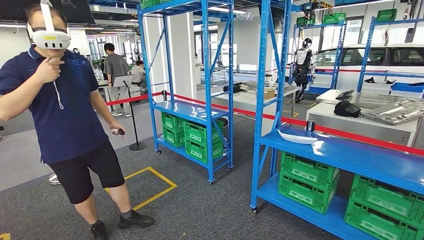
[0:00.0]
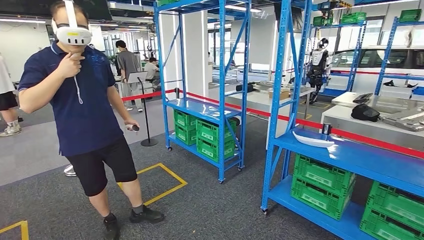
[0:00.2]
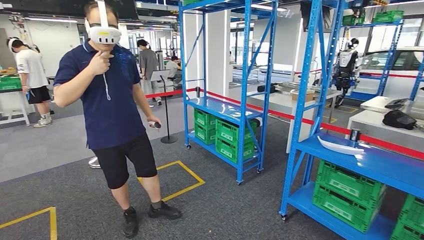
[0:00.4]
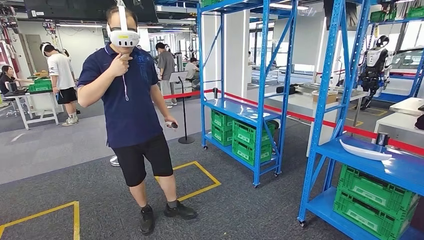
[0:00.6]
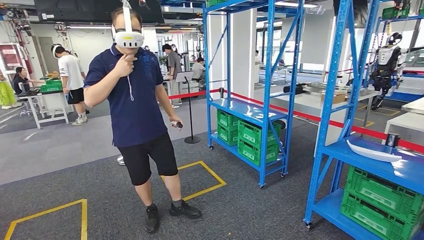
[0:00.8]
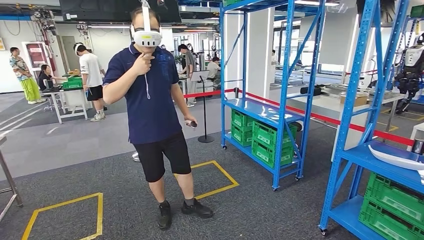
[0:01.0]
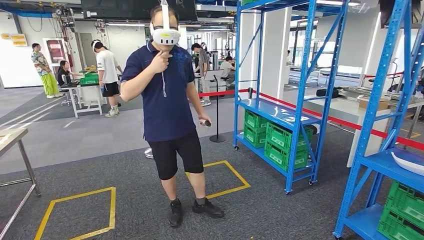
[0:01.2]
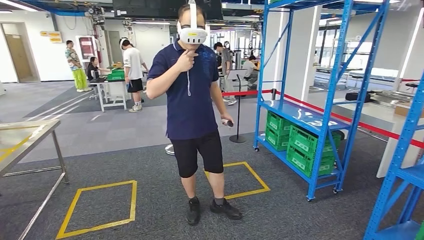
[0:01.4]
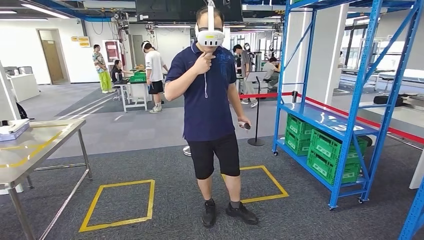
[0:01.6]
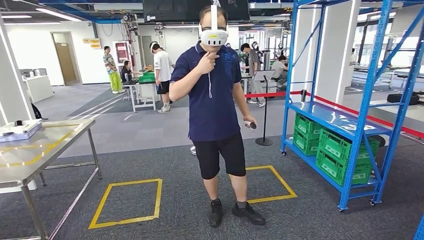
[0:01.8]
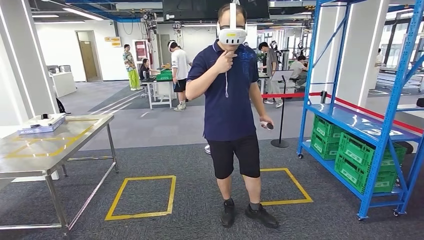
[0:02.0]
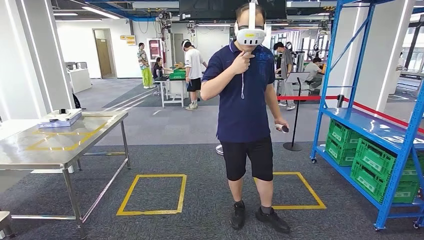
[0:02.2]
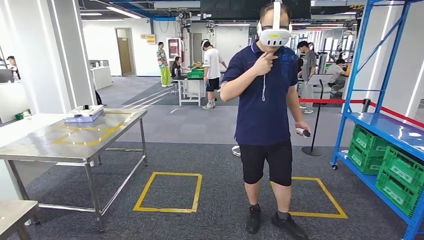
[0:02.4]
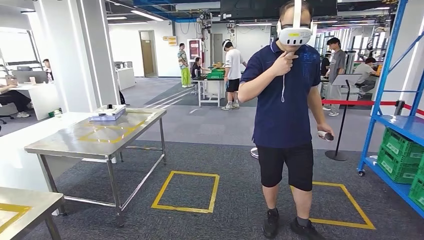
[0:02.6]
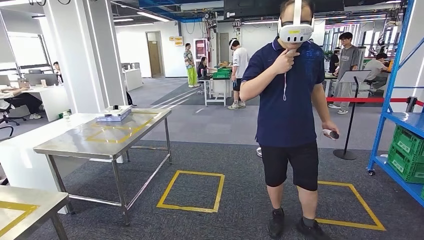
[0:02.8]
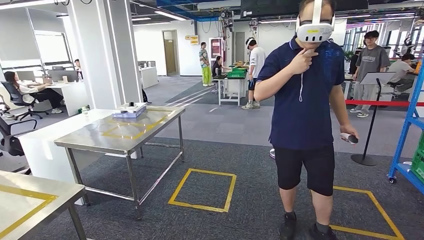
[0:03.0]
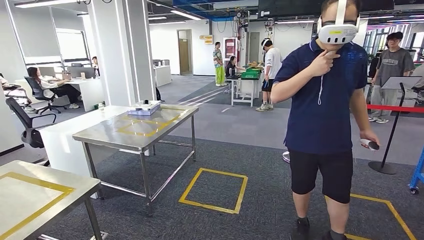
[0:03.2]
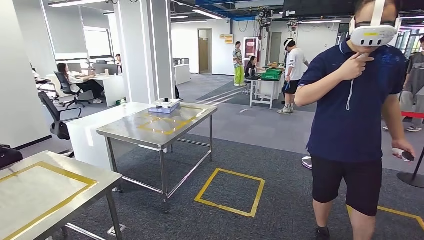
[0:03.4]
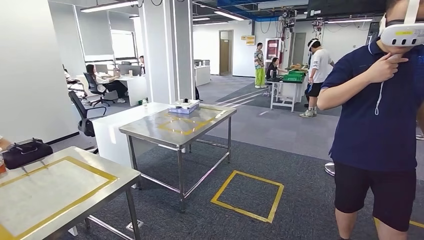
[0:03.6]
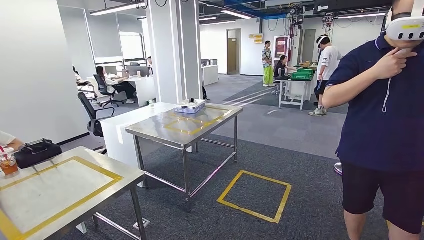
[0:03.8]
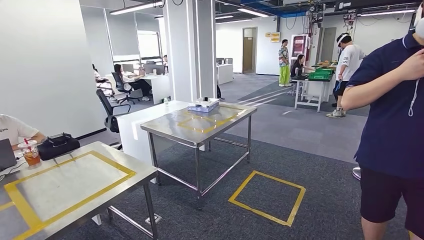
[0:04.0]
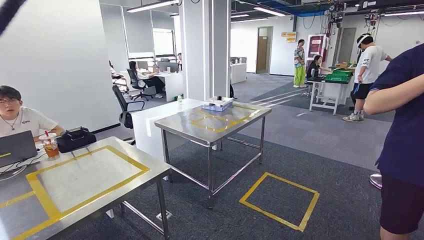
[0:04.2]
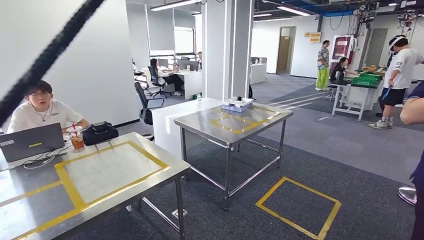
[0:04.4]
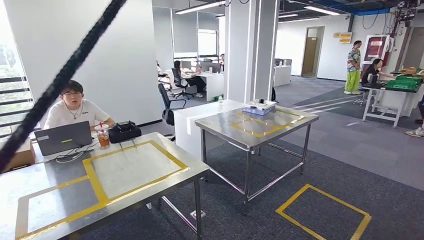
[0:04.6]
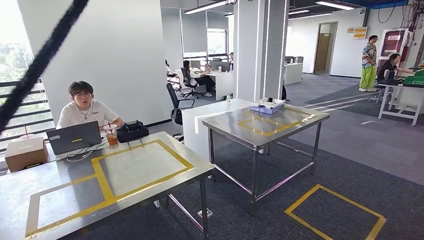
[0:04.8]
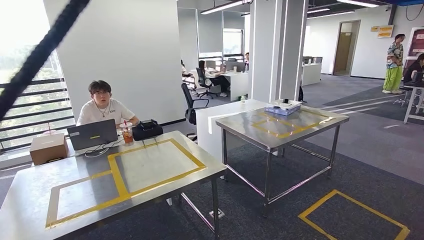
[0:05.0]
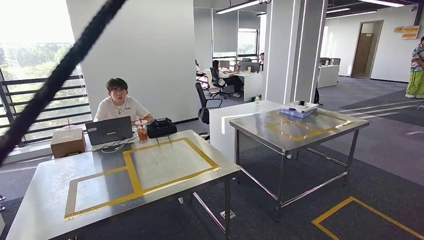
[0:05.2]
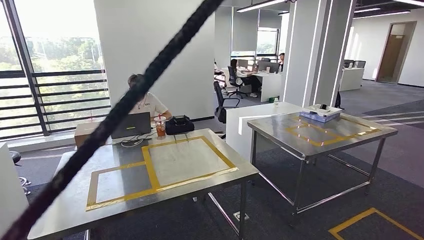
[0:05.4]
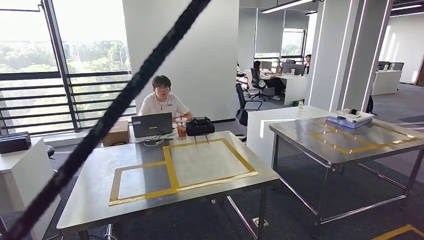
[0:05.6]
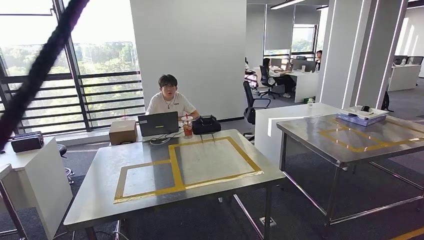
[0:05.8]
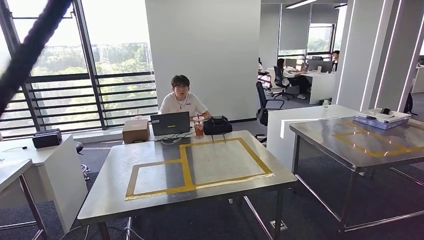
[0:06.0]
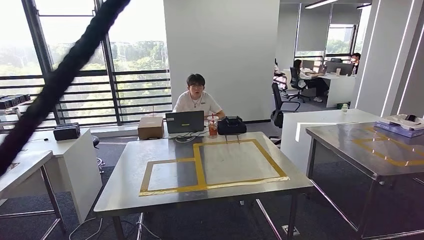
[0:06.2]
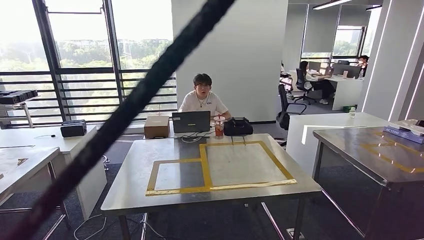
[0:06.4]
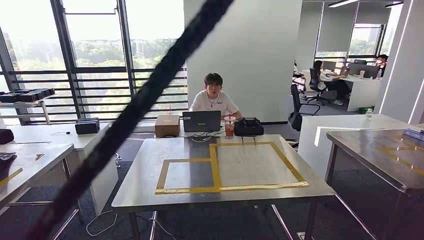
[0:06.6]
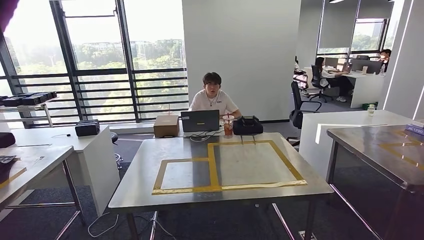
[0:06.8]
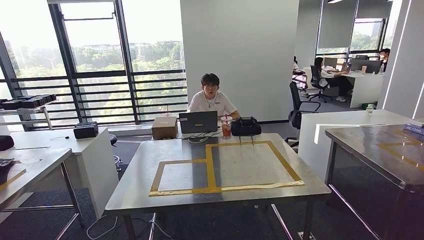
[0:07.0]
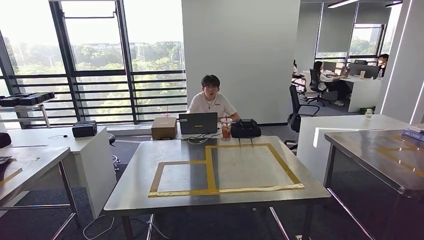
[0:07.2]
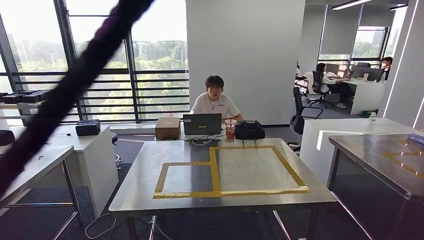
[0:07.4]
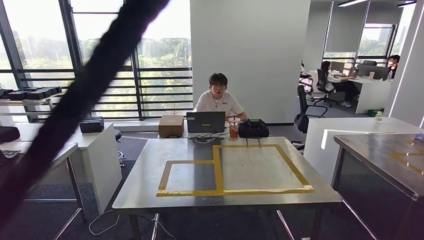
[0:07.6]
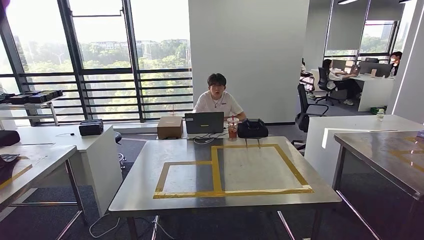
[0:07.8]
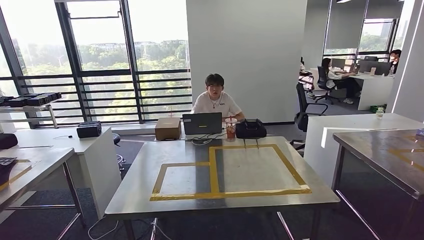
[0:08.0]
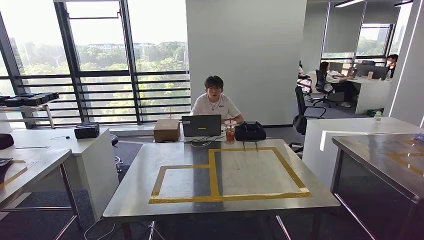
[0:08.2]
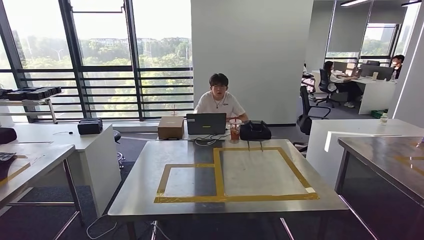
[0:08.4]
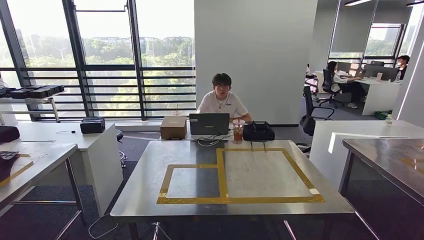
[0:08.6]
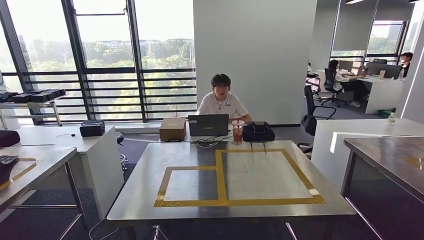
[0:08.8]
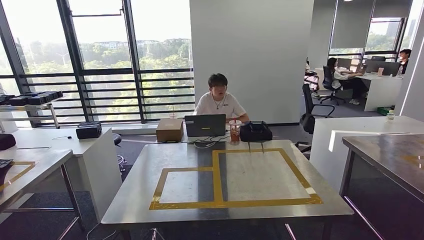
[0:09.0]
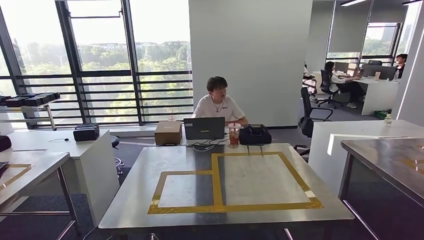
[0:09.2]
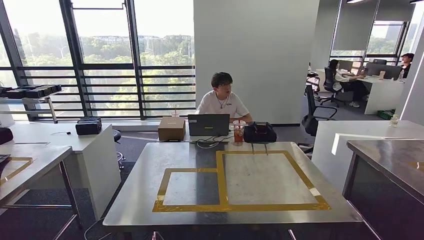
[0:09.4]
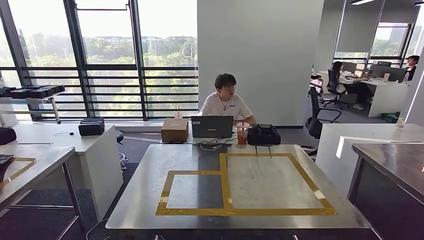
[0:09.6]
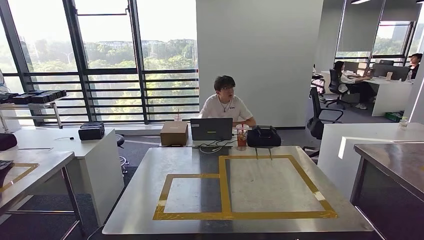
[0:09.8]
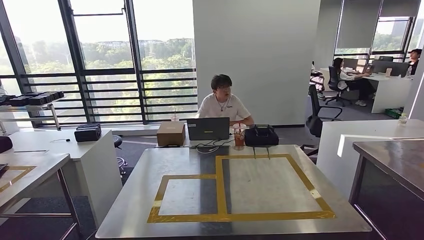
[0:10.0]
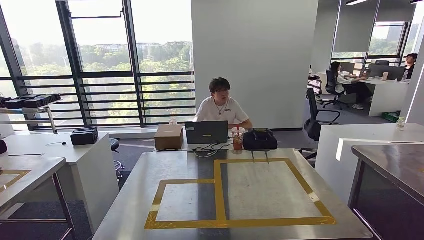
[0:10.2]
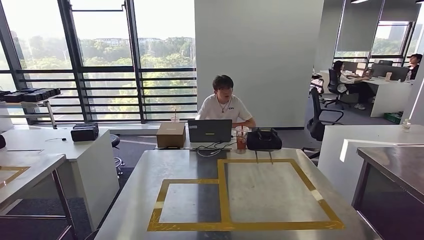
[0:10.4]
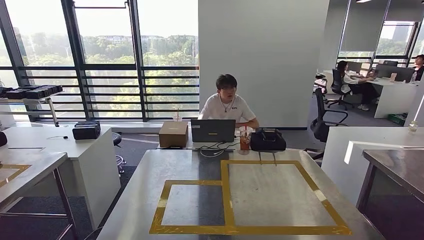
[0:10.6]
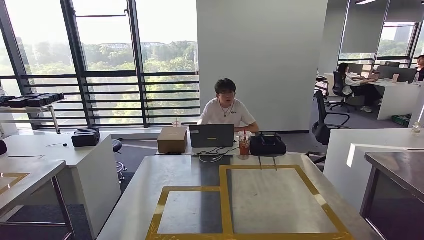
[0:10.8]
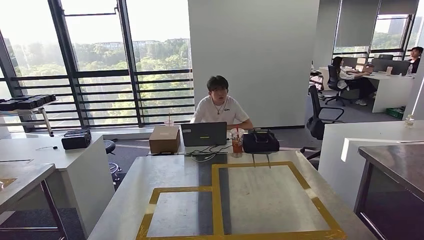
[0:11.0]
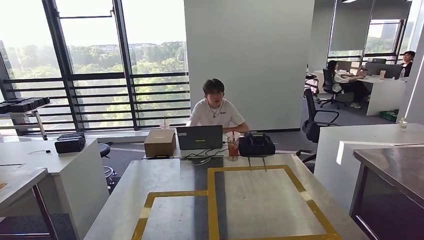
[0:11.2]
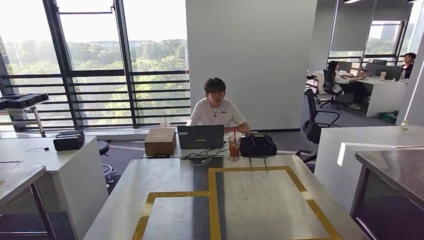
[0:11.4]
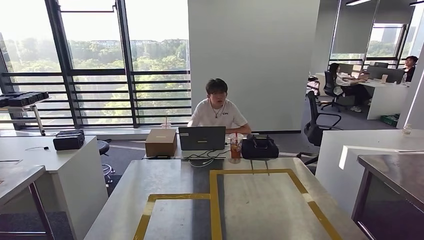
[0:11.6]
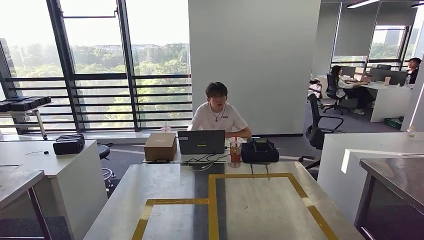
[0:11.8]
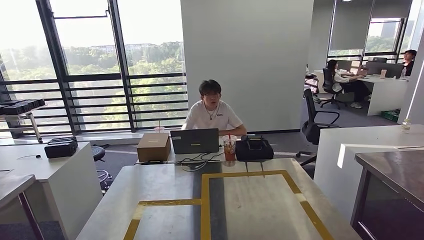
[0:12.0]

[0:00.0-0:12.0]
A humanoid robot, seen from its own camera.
Step, 0:00.0 to 0:03.6: Bring the small component to the front of the workbench.

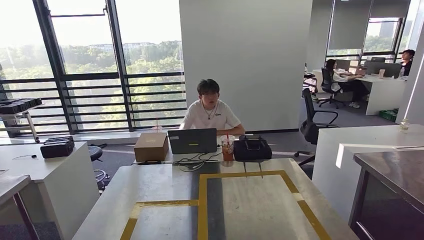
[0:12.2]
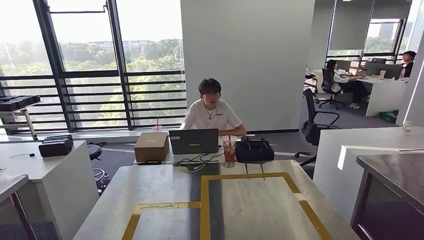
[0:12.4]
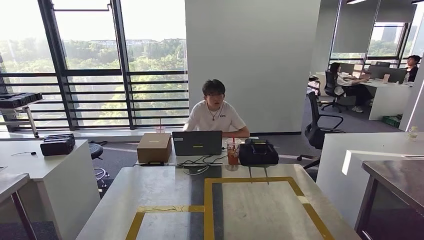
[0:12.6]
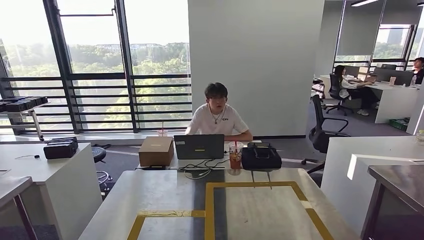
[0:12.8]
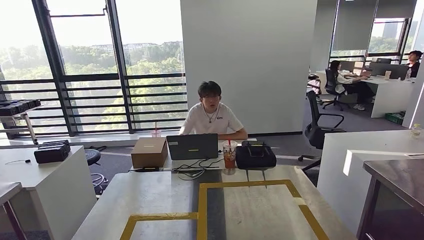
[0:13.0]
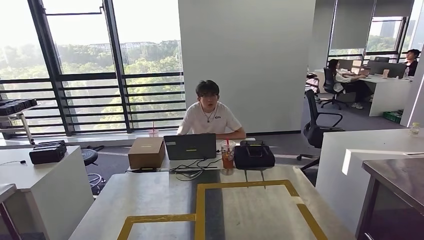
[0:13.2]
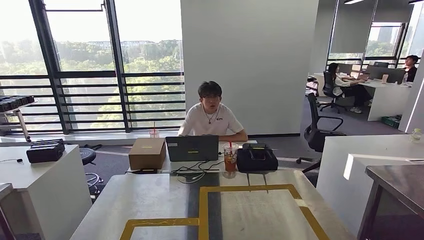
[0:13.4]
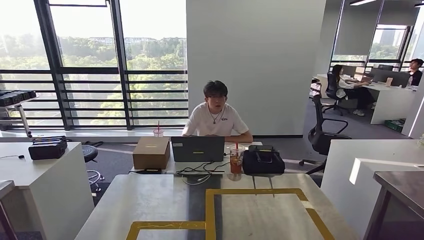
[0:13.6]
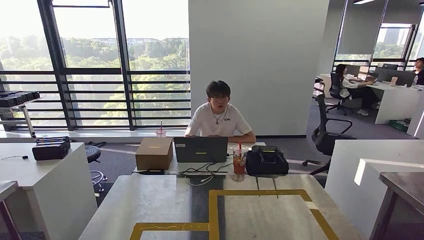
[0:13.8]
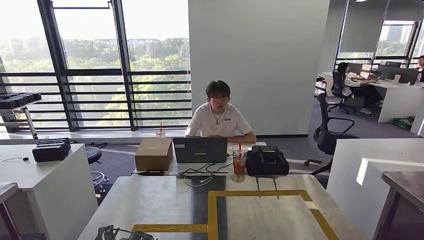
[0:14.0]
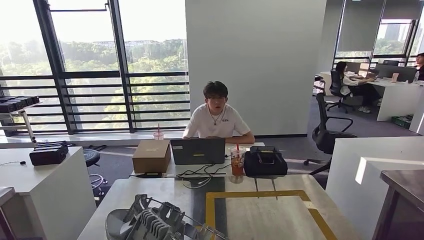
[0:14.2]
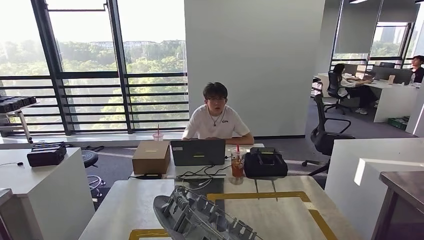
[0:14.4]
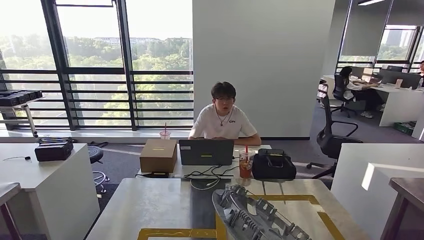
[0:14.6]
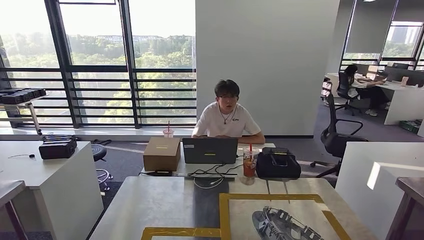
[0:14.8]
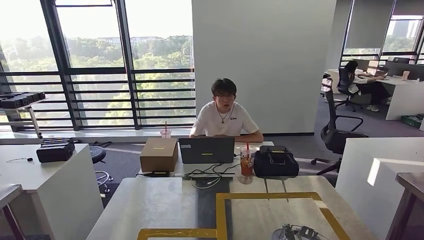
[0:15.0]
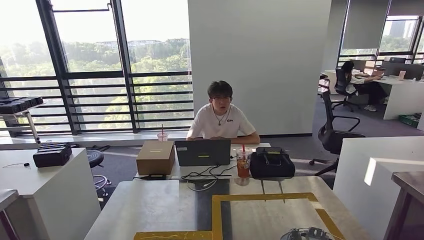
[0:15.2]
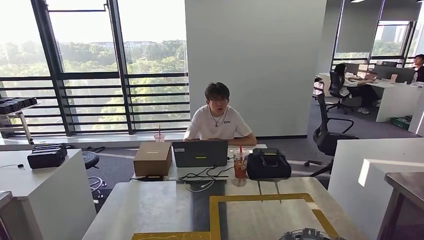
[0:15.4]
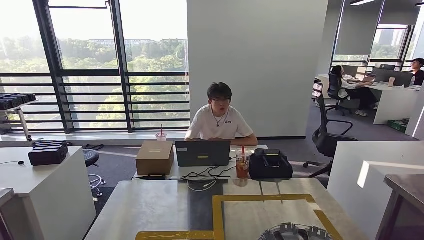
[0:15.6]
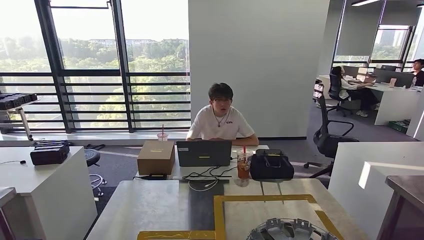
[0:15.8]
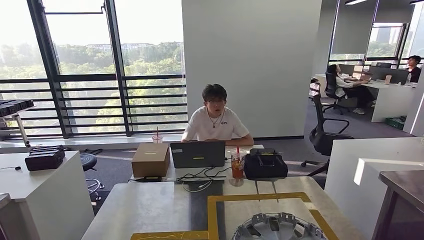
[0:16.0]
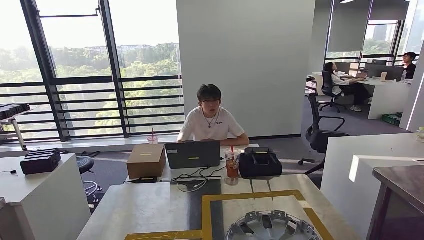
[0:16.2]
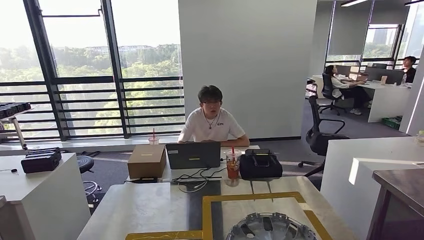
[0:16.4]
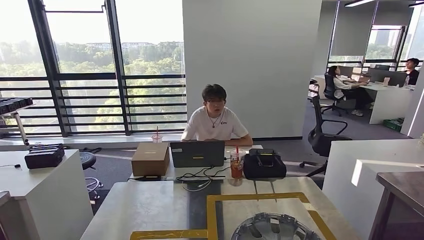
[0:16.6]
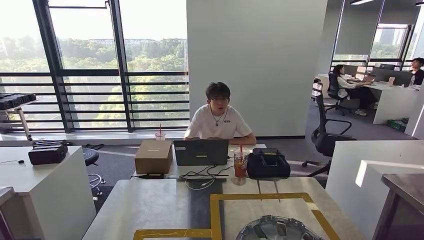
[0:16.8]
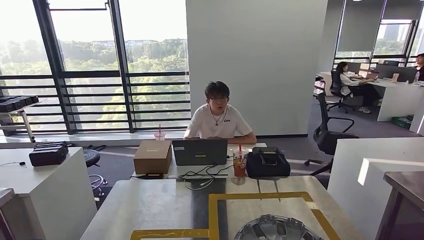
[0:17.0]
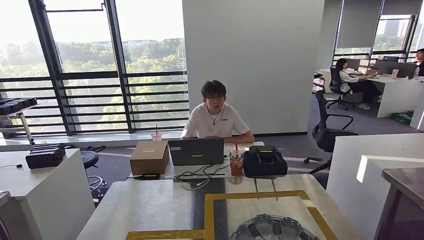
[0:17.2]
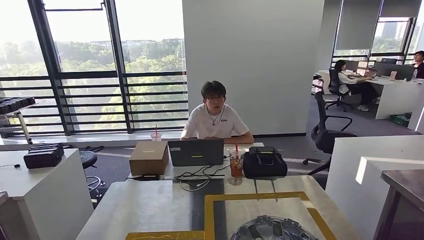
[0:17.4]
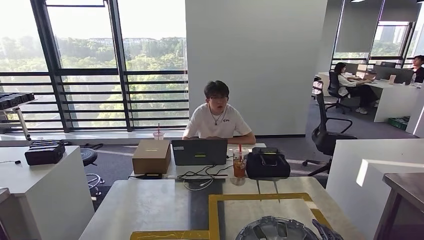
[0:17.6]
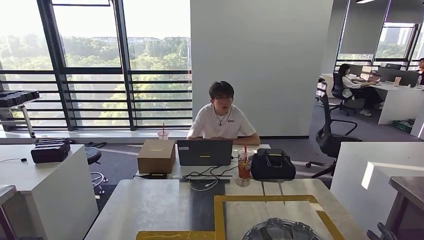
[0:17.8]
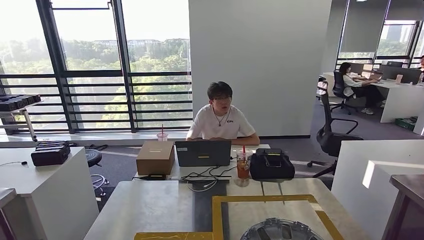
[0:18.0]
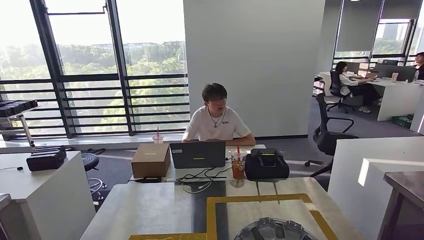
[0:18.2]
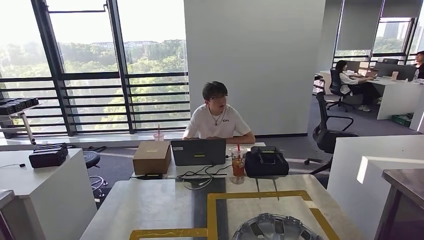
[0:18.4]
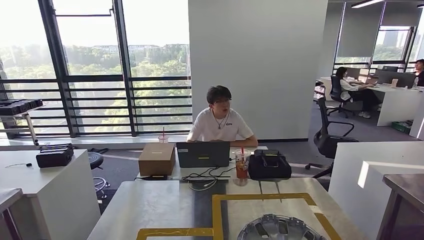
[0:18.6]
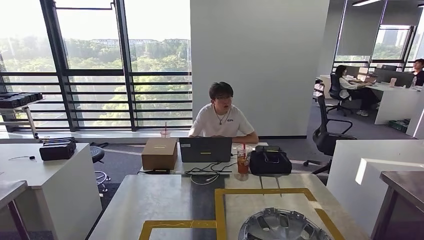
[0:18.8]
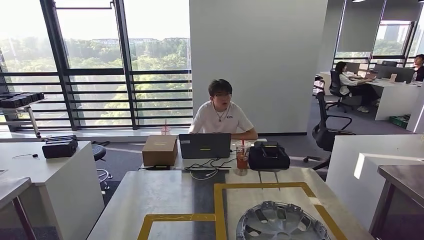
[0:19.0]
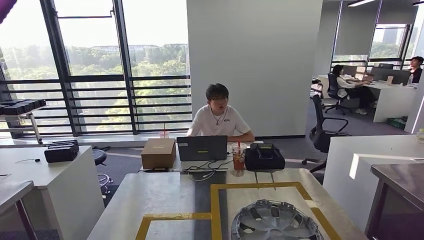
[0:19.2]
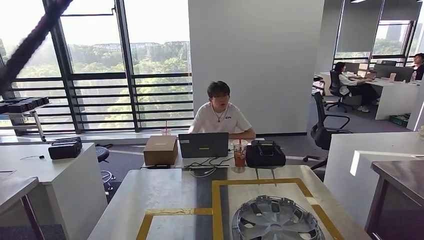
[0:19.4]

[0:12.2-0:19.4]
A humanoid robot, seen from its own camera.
Step, 0:12.2 to 0:18.4: Insert the small component into the corresponding slot on the workbench.
